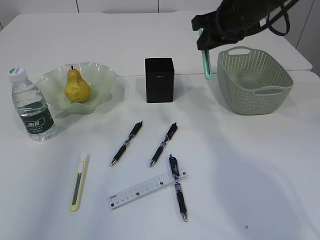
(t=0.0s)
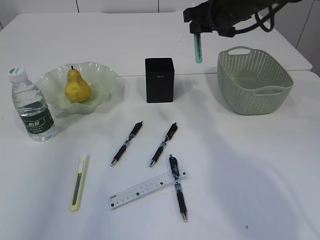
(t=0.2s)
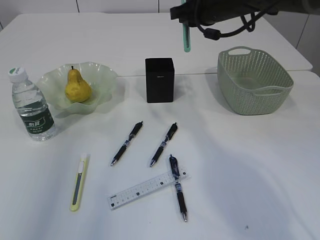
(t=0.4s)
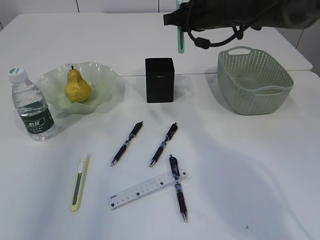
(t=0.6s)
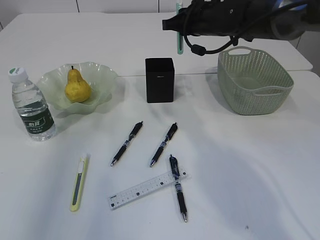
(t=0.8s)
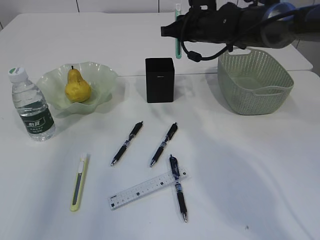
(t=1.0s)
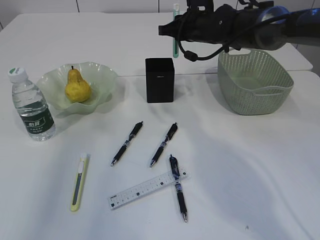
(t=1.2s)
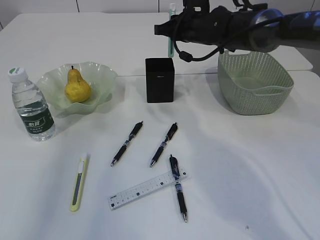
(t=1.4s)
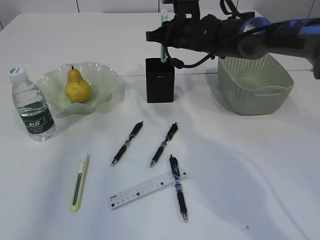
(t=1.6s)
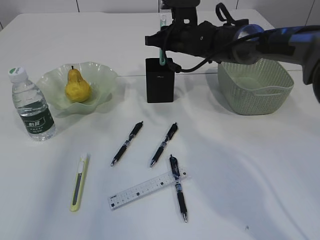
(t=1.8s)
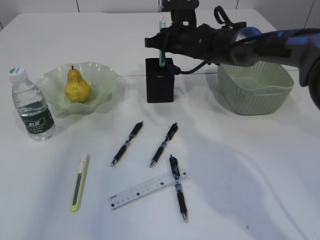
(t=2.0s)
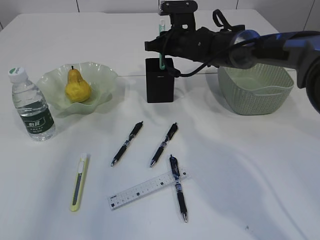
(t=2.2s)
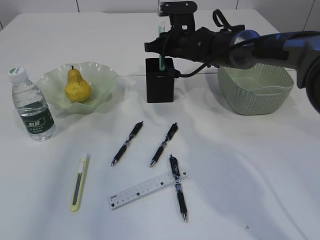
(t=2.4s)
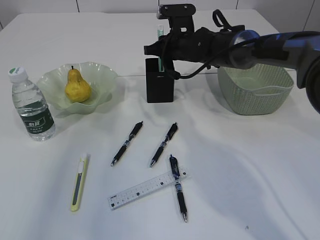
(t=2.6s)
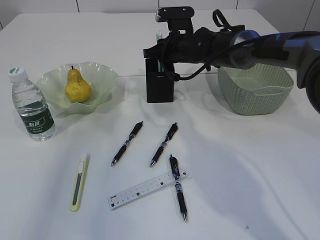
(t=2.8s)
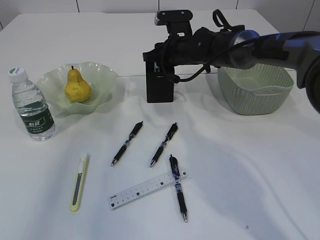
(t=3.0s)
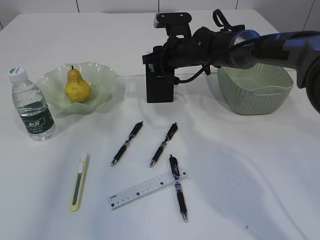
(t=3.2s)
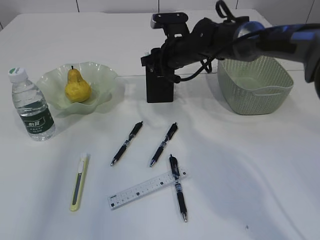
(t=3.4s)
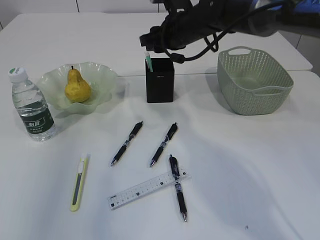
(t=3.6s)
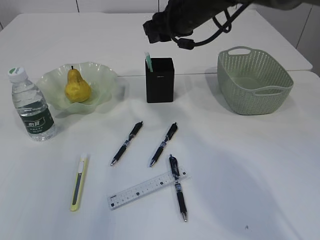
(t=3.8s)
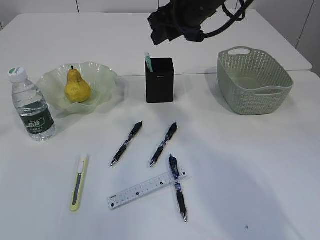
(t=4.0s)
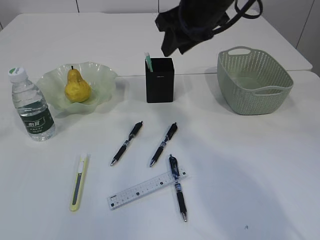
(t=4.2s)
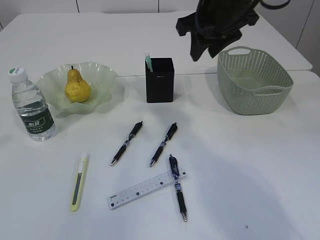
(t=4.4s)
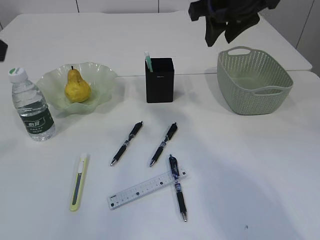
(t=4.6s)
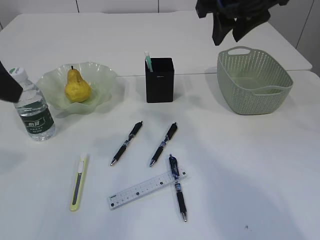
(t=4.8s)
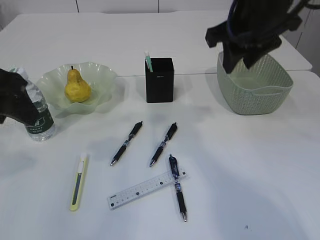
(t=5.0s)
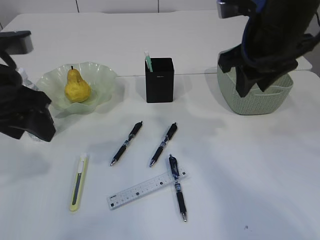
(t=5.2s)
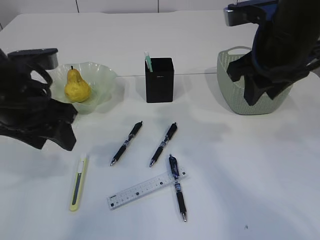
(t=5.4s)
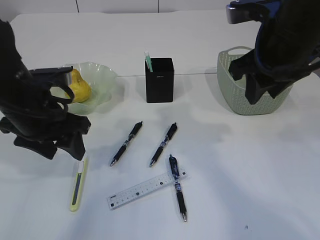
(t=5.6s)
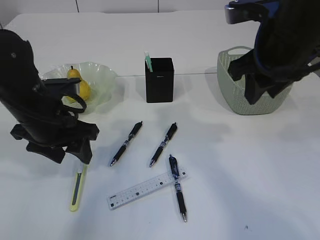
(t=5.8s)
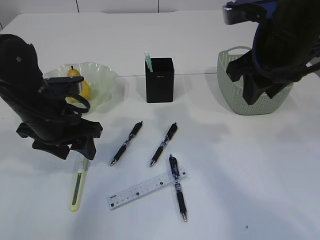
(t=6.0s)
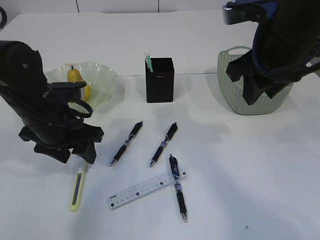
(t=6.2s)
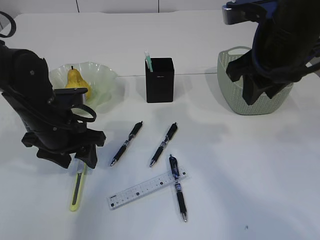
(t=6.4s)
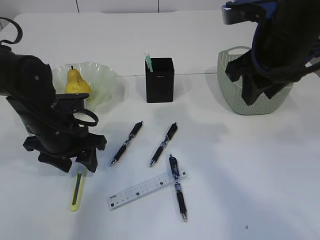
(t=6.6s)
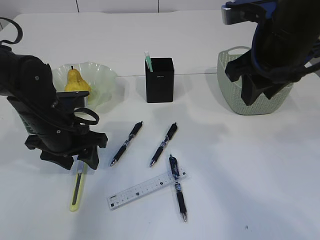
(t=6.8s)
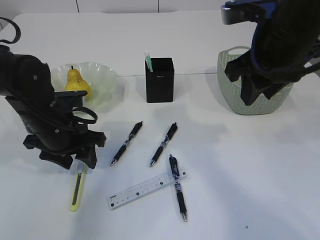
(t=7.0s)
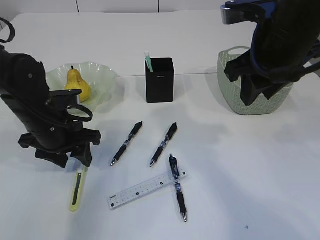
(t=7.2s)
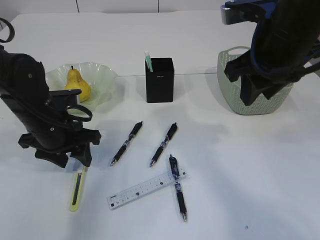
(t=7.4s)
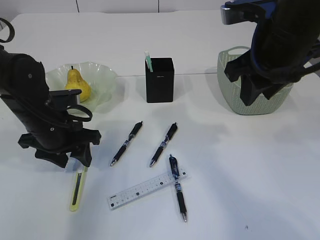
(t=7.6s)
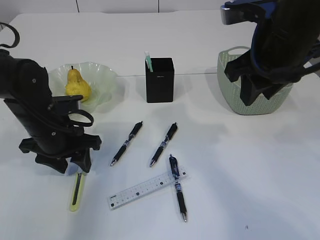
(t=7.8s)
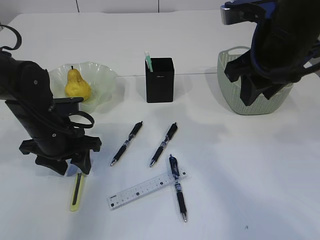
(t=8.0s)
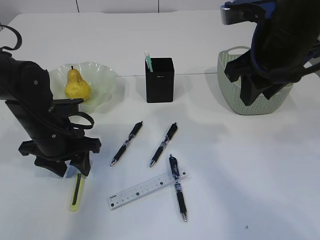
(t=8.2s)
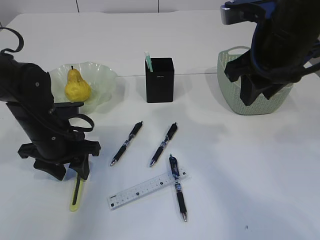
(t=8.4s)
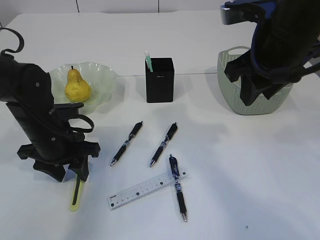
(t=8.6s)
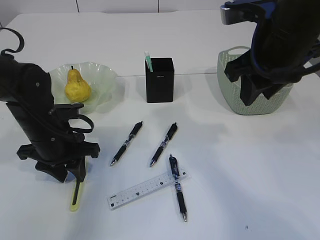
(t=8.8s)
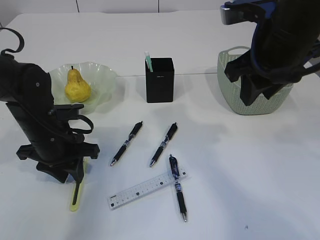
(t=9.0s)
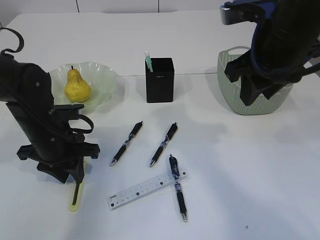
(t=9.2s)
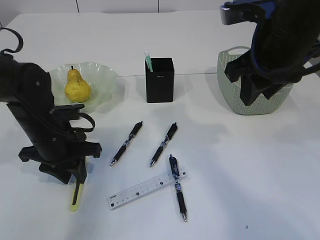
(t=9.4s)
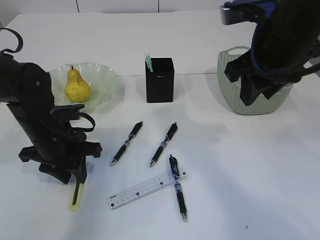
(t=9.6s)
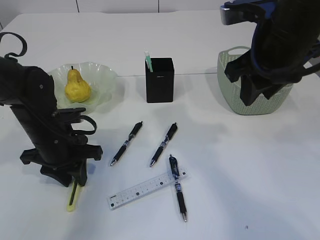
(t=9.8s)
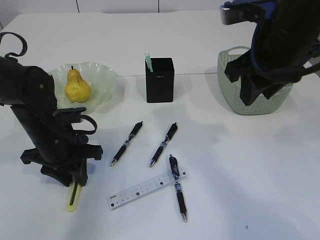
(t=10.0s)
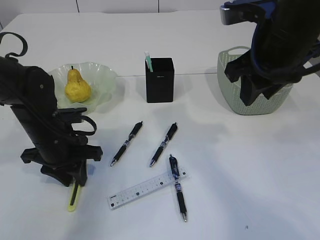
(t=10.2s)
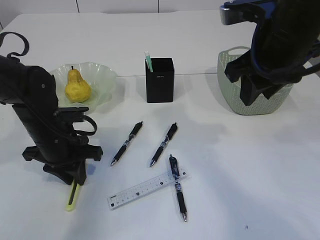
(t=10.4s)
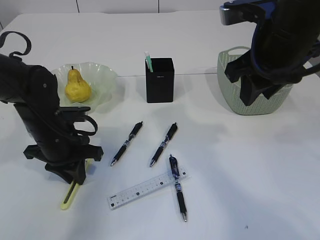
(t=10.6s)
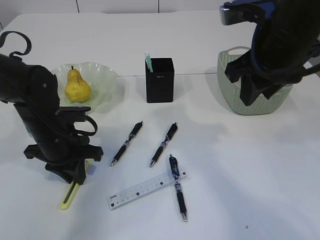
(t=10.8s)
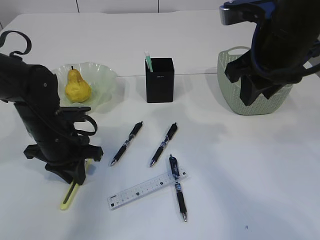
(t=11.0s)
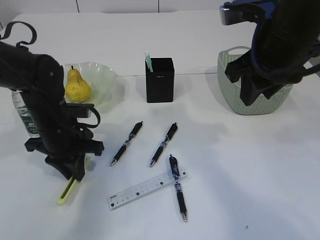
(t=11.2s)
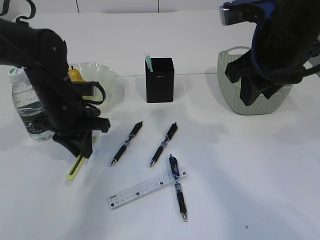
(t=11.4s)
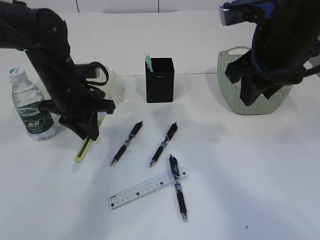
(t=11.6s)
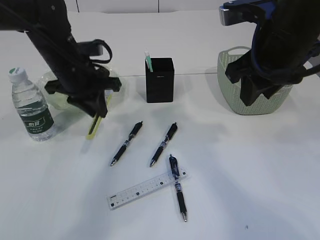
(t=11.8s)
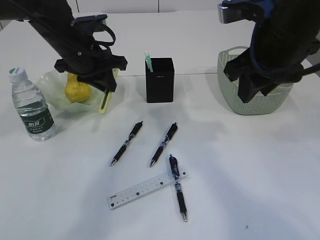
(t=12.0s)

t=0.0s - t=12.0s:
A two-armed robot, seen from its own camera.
Step, t=0.0s - t=3.8s: Place the blue knife into the pen holder.
Step, t=4.0s - t=11.6s: pick up the yellow knife.
t=0.0s - t=1.6s: The right gripper shifts some 15 cm forward, to the left and downward.
t=1.6s - t=3.0s: The grippers make only small movements.
t=3.0s - t=4.4s: The right gripper goes about 20 cm upward and backward.
t=4.4s - t=6.0s: The left gripper heads downward and forward, covering approximately 25 cm. The right gripper shifts some 10 cm backward and to the right.
t=6.0s - t=9.0s: There are only small adjustments of the grippers.
t=9.0s - t=10.4s: The two grippers keep their place.
t=10.4s - t=12.0s: The left gripper travels upward and forward by some 15 cm.

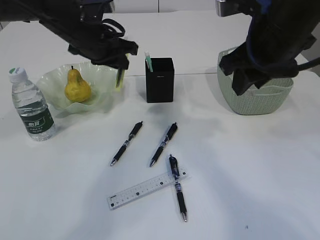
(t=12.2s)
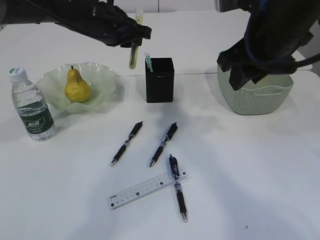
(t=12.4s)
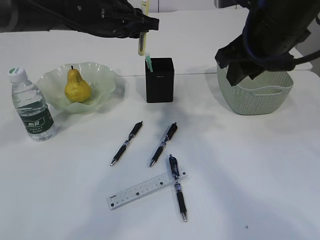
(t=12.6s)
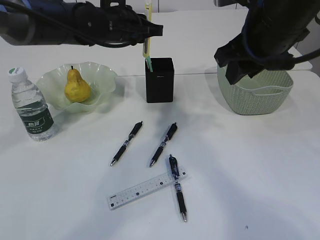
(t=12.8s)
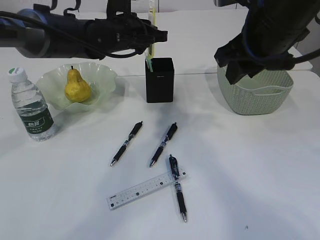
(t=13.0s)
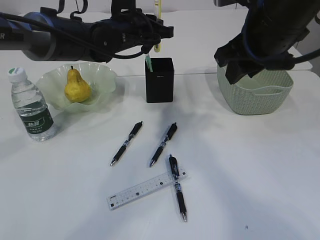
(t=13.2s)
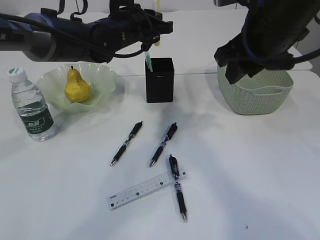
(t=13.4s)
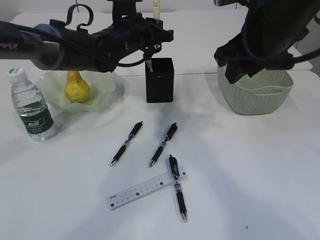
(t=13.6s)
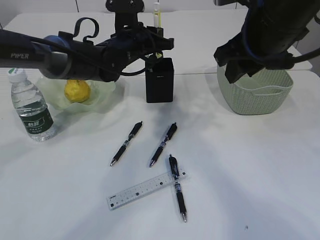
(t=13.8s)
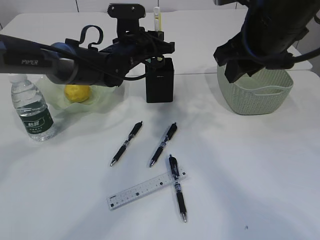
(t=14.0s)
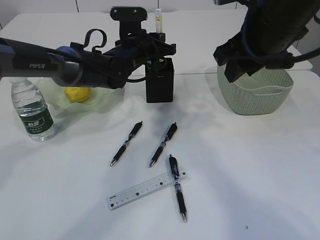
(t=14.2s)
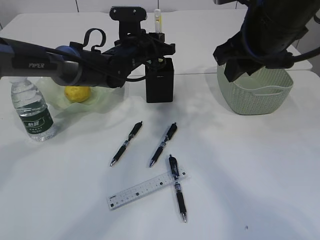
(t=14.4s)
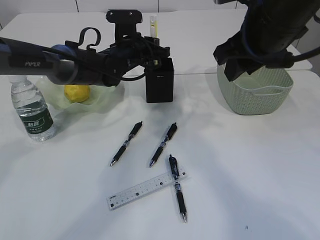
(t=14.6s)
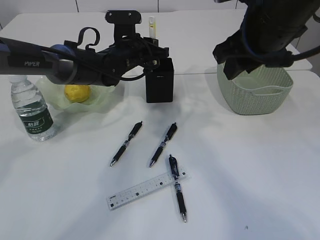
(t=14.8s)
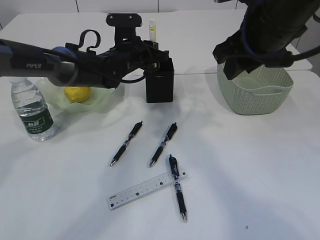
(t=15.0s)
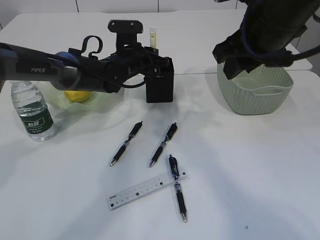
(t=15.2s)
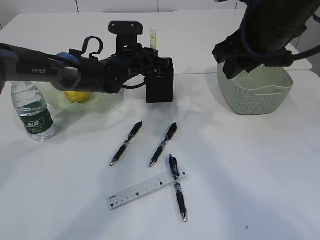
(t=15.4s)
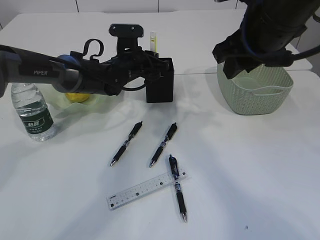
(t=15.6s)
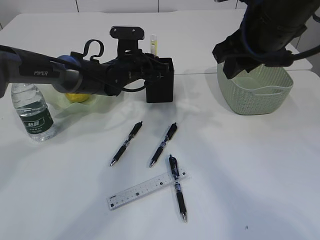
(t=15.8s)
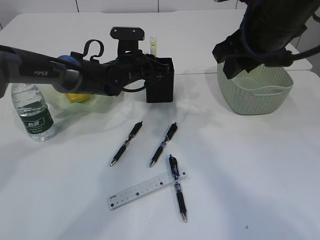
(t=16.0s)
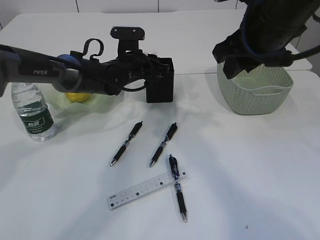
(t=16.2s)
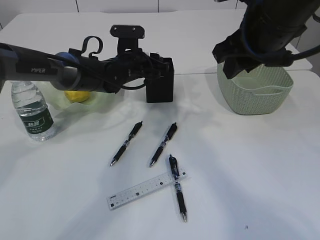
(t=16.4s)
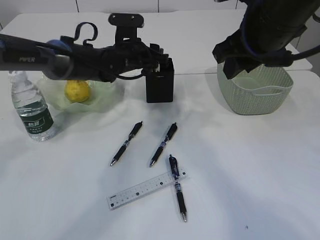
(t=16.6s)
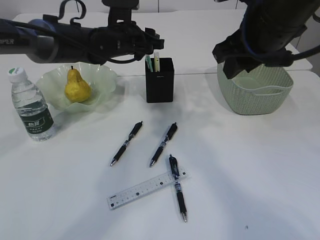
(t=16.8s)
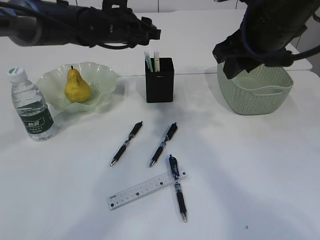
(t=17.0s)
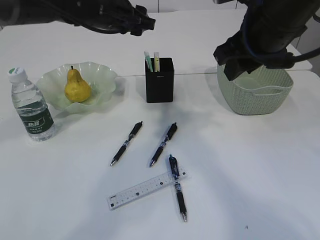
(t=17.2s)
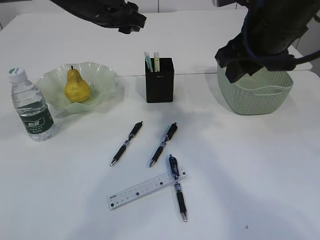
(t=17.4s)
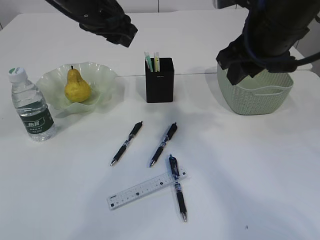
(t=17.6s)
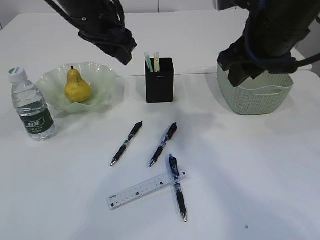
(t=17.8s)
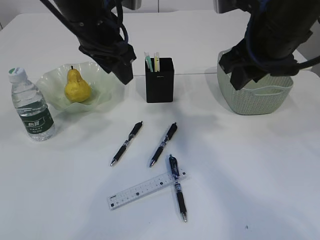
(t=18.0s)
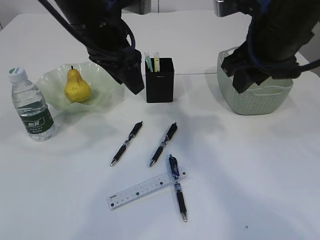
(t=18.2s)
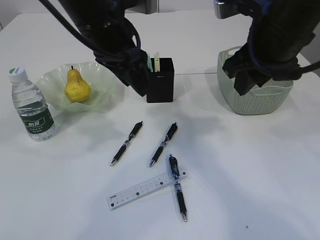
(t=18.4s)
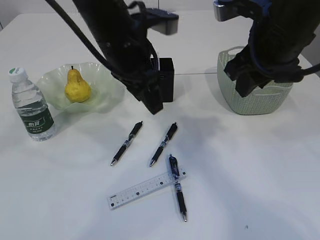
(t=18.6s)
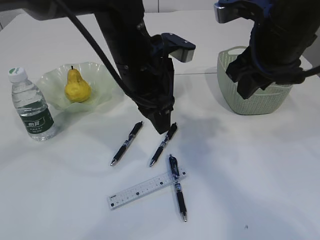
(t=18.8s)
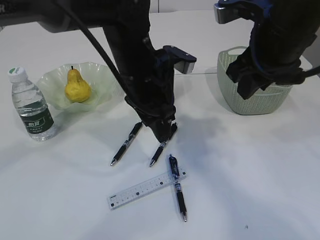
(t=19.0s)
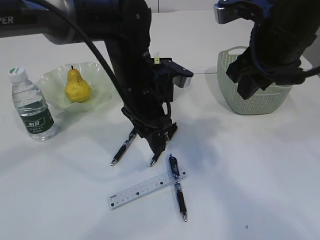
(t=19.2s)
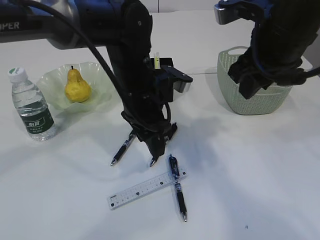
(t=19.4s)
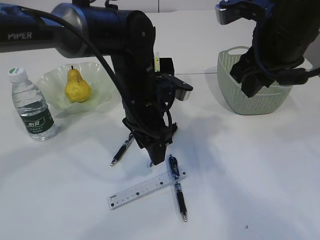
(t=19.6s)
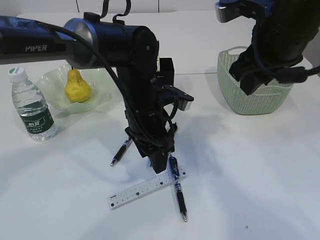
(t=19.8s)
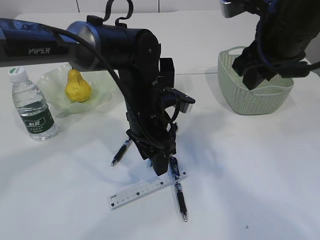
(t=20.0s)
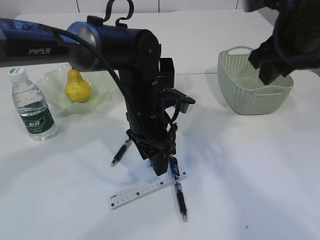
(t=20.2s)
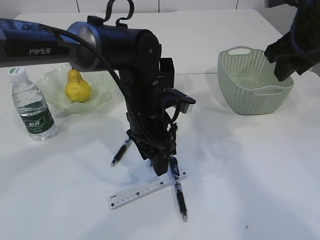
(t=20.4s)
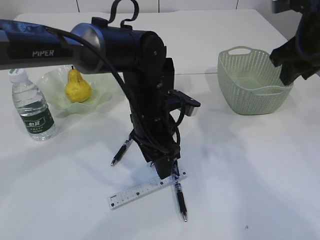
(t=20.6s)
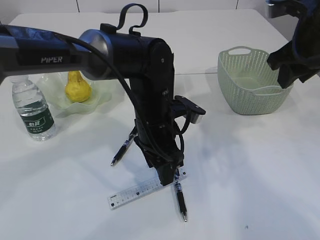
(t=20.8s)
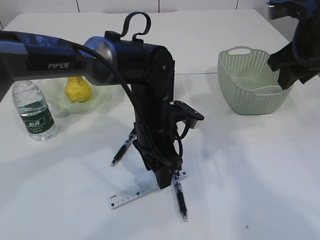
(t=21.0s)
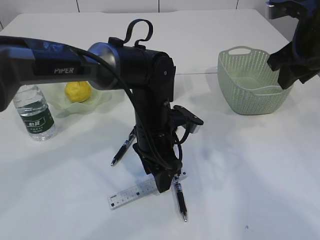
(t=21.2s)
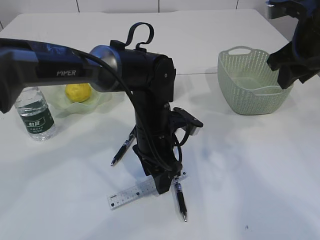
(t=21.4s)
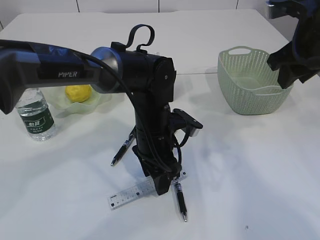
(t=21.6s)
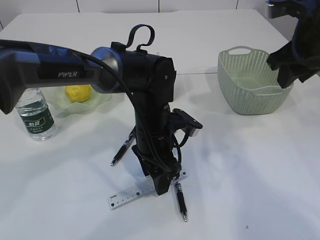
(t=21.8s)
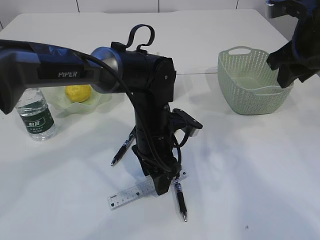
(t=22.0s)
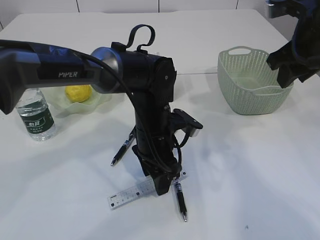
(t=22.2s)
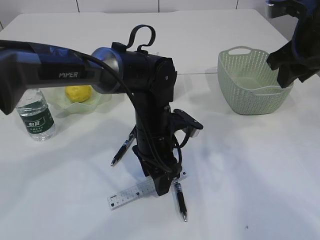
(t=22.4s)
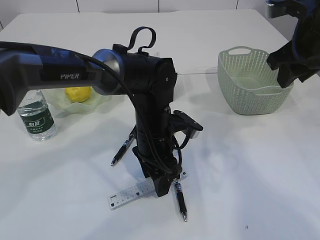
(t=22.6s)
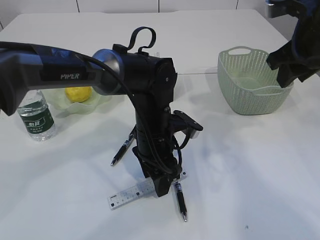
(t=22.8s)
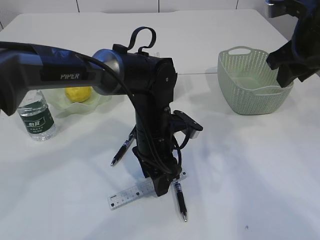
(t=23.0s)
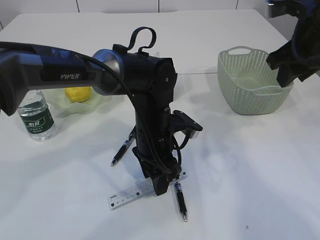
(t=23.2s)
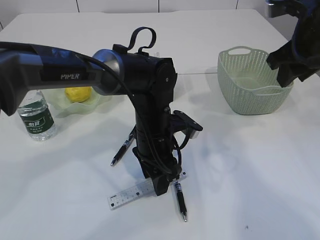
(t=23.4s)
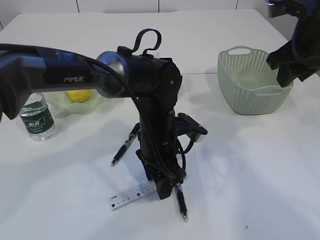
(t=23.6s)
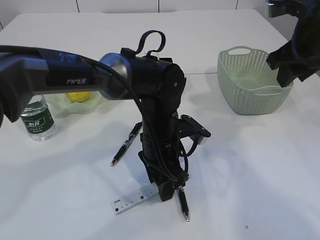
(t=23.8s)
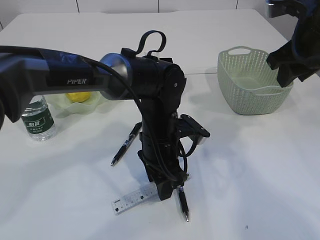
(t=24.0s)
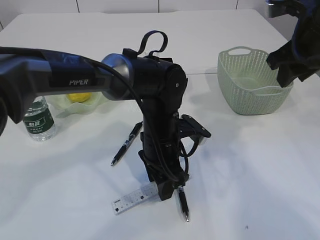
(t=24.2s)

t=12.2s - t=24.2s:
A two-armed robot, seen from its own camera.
Step, t=12.2s - t=17.0s: place the yellow knife into the pen holder.
t=12.2s - t=13.8s: The left gripper is displaced to the right by some 5 cm.
t=13.8s - t=15.2s: The left gripper changes place by roughly 5 cm.
t=15.2s - t=16.6s: The left gripper opens.
t=16.6s - t=18.2s: The left gripper moves upward and backward, roughly 20 cm.
t=18.2s - t=19.8s: The left gripper goes about 15 cm downward and to the right.
t=19.8s - t=21.2s: The right gripper goes roughly 10 cm to the right.
t=21.2s - t=22.6s: Both grippers stay put.
t=22.6s - t=24.2s: The grippers move only a little.
